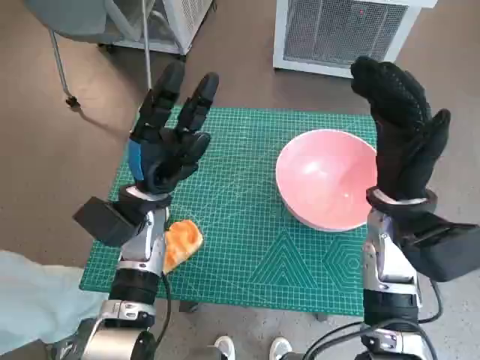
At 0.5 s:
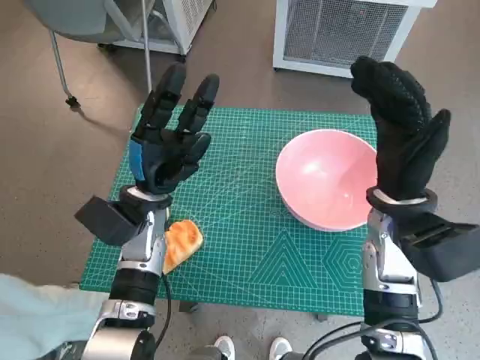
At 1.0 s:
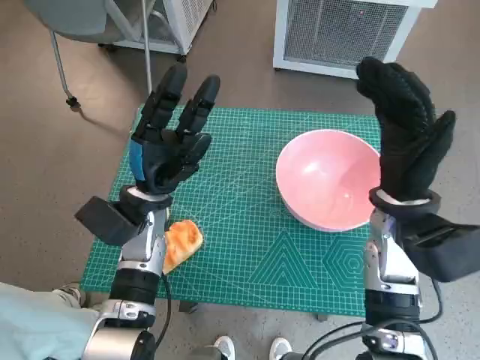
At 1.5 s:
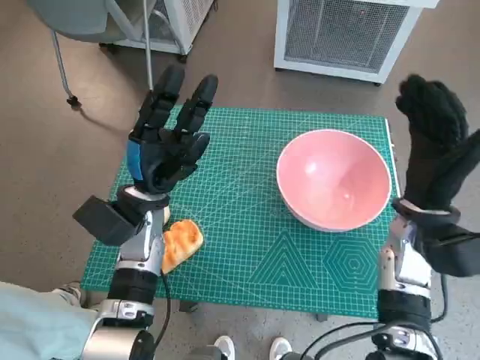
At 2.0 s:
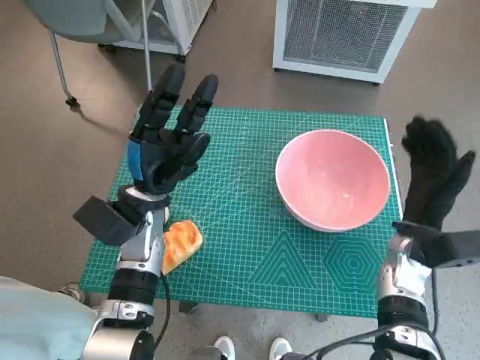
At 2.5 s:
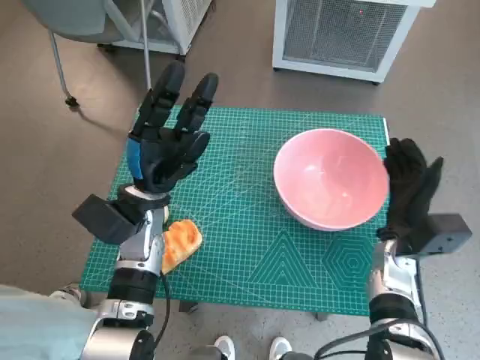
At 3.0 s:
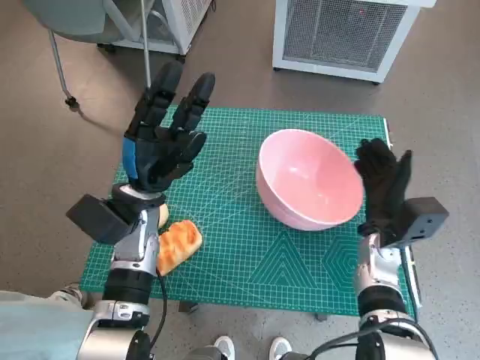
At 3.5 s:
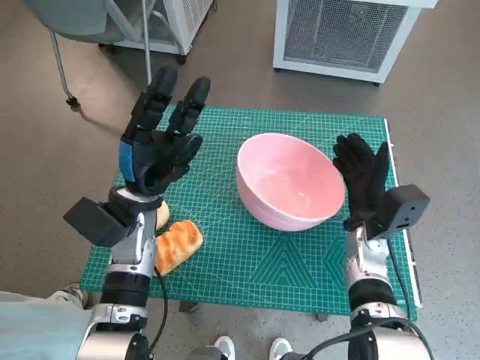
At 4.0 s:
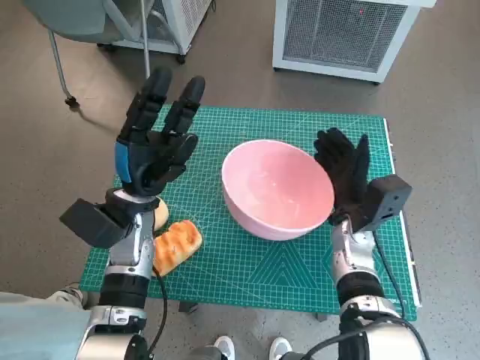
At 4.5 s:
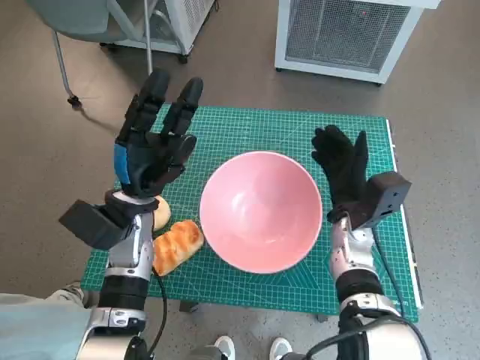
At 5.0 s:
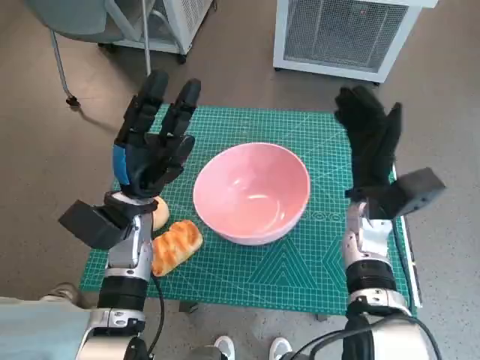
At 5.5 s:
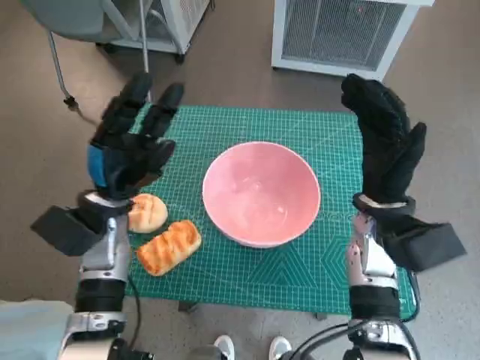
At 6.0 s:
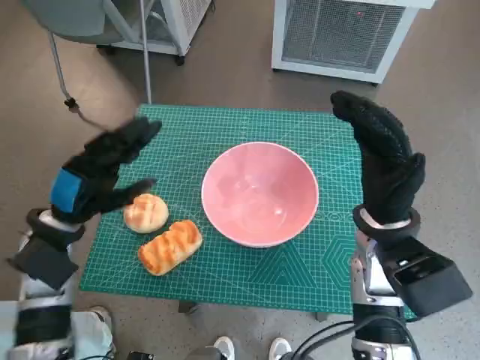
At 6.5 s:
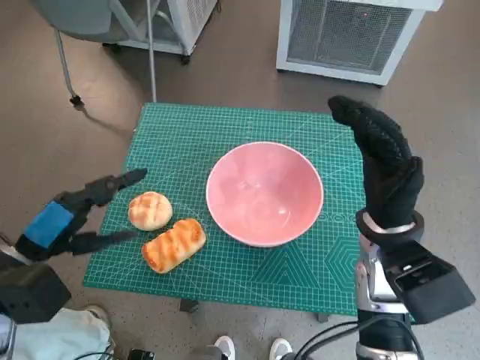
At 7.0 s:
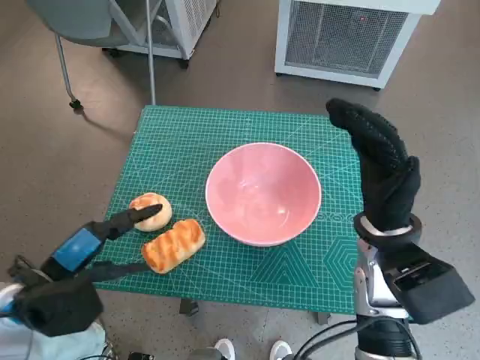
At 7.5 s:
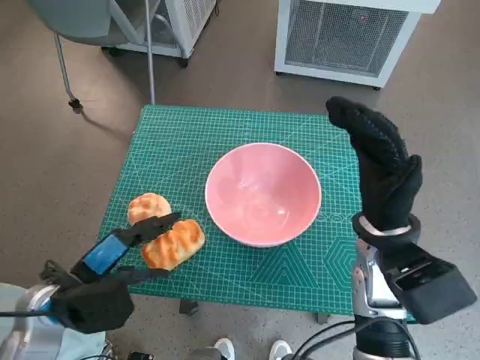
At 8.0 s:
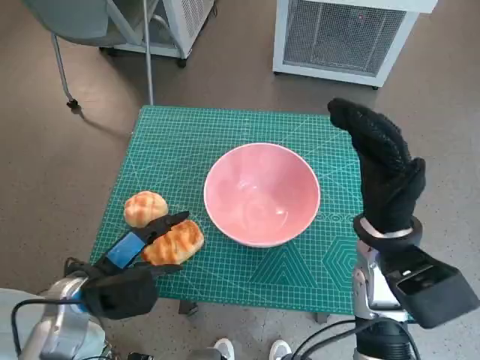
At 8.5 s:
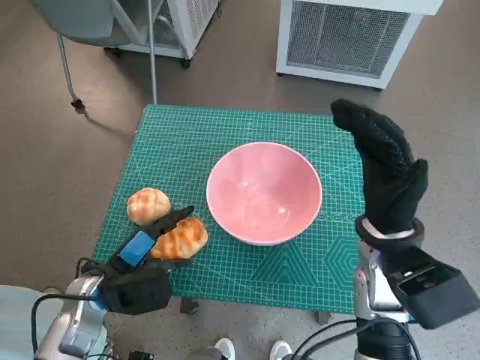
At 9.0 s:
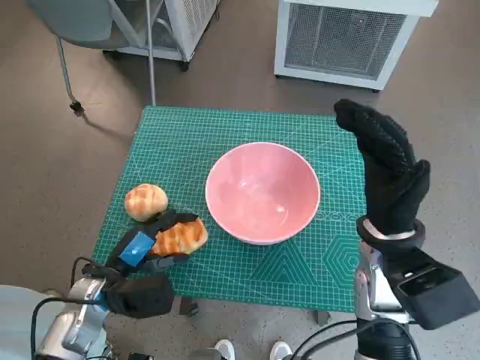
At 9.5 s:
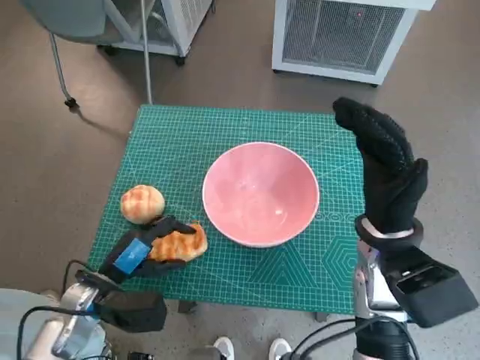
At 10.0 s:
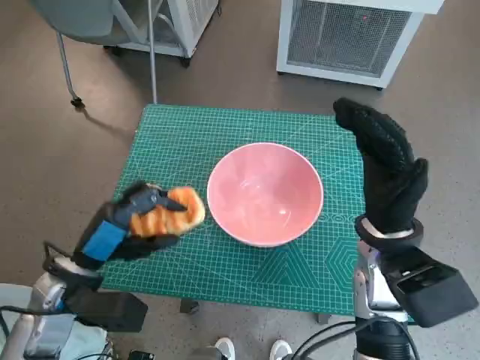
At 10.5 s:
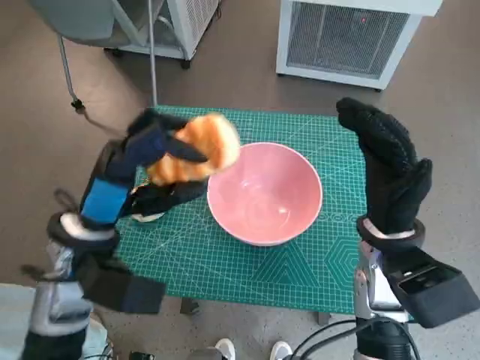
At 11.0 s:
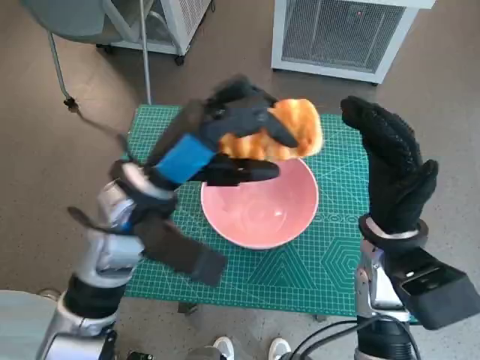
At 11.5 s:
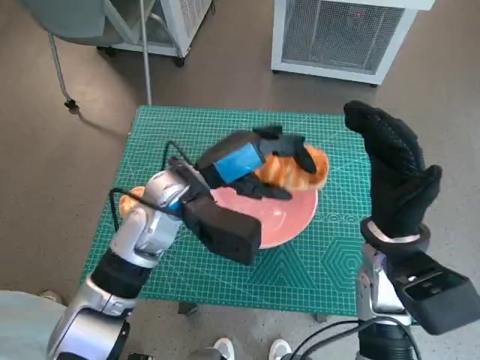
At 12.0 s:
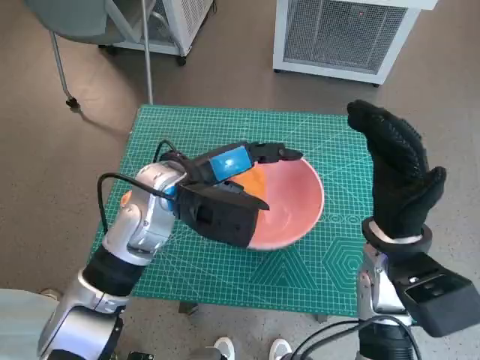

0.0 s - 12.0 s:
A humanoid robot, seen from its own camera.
Task of the whole recording: Push the bowl to the center of the table and put the bread into the bowl.
Step, 0.0 s - 4.5 s: Move the pink bowl to the center of table with right hand.
Step, 5.0 s - 9.0 s: Grasp the long bread with left hand.
2.0 s - 4.0 s: The right hand shifts some 5 cm to the left.
4.0 s - 6.0 s: The left hand moves to the left, about 10 cm; the right hand heads upward, covering roughly 10 cm.
6.0 s - 8.0 s: The left hand heads backward and downward, covering some 10 cm.
10.0 s - 12.0 s: The left hand travels to the right, forward and upward by roughly 20 cm.

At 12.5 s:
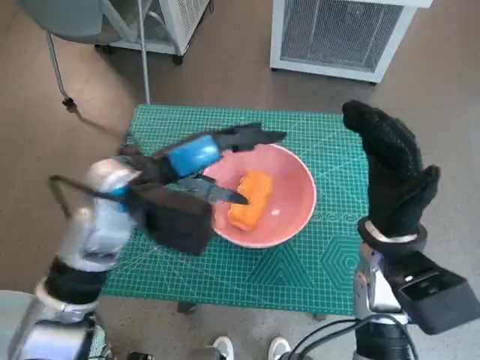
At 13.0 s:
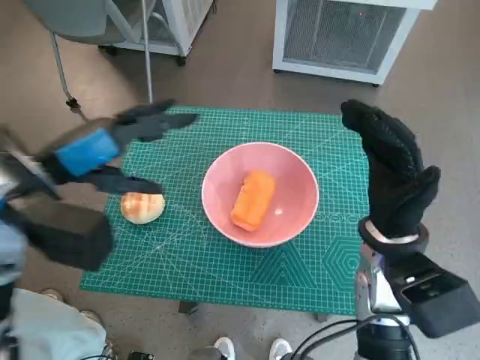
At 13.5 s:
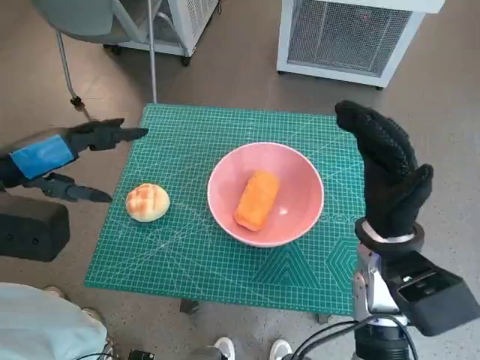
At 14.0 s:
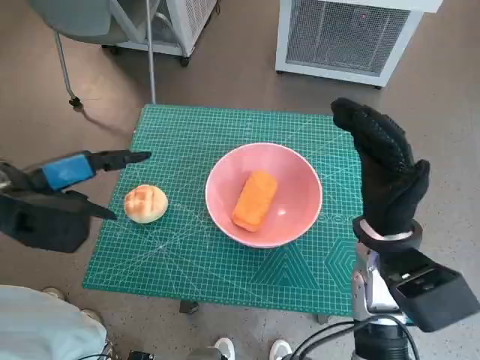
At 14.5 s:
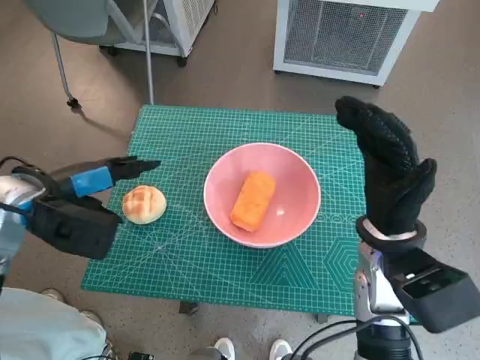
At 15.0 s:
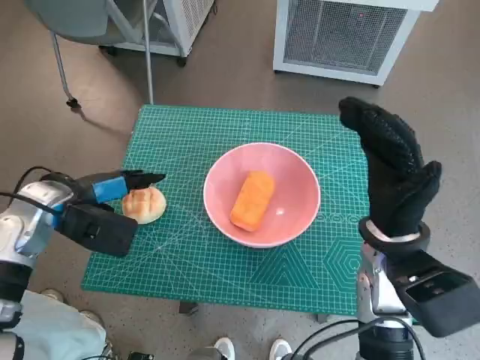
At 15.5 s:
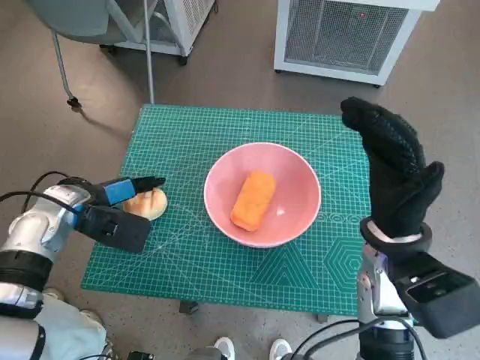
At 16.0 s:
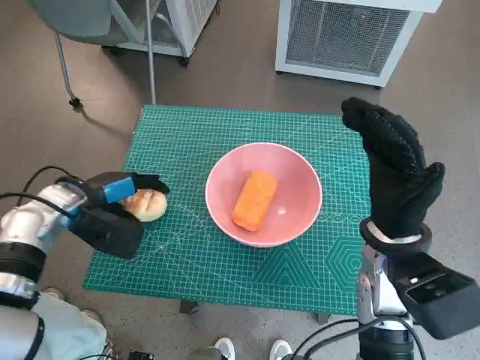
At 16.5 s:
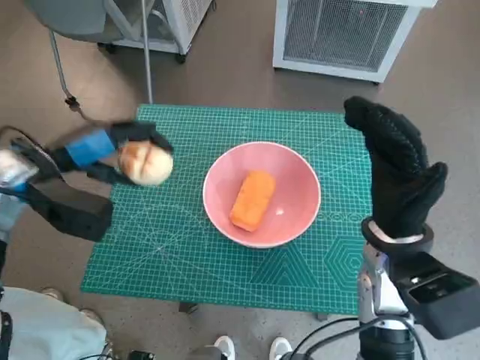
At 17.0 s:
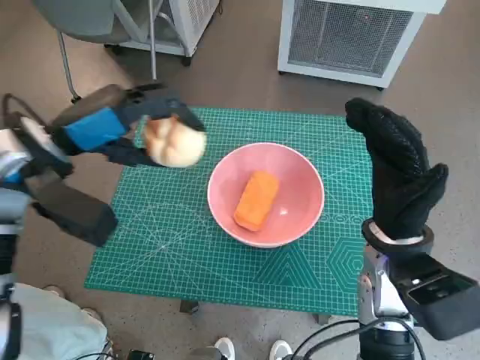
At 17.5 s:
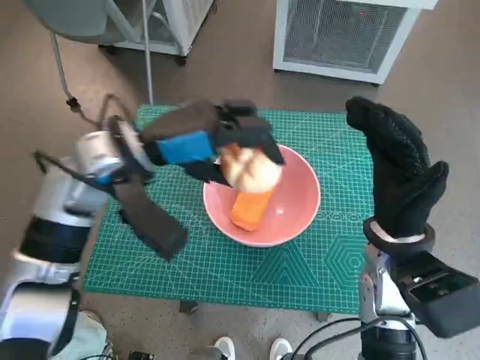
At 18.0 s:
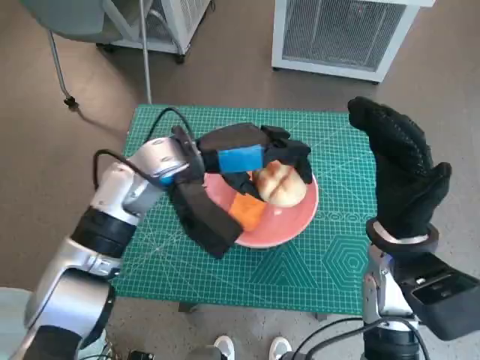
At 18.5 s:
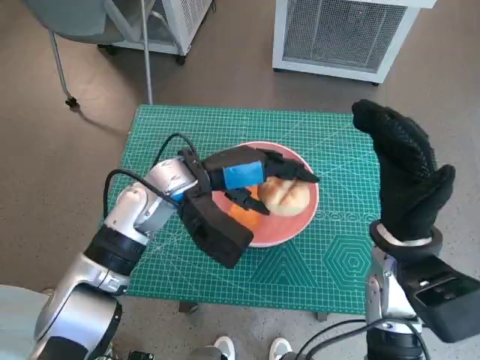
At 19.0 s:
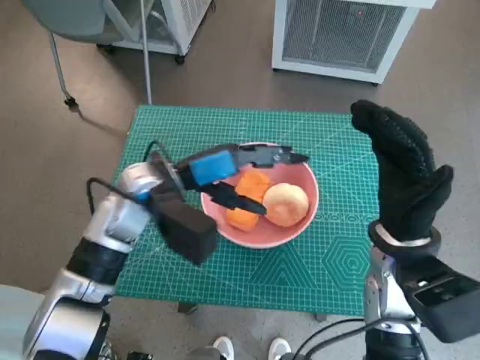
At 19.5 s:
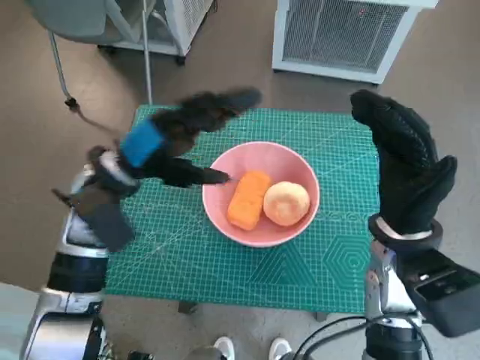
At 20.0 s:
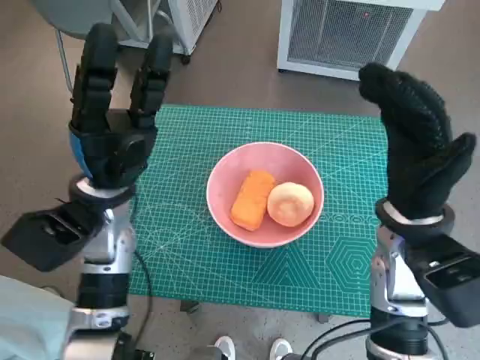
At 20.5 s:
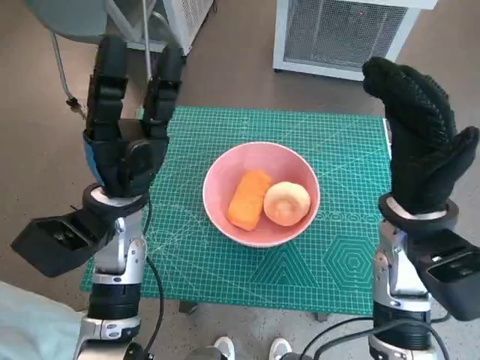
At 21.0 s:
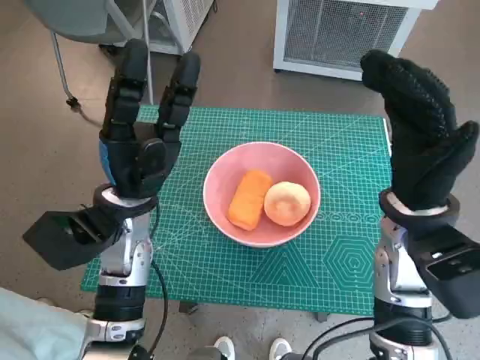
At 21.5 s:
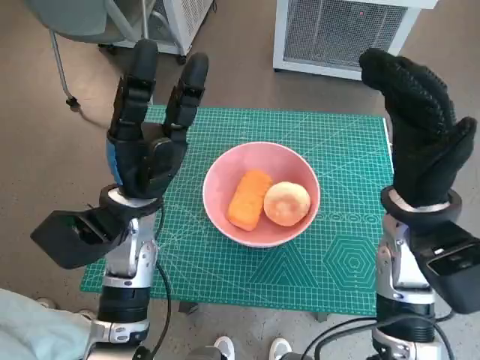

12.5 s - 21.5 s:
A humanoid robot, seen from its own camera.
Task of the whole recording: Push the bowl to the center of the table and put the bread into the bowl.
Step, 12.5 s - 15.5 s: Grasp the round bread with left hand.
Step, 16.0 s - 19.0 s: Place the round bread in pink bowl with left hand.
12.5 s - 14.5 s: The left hand shifts about 15 cm to the left.
14.5 s - 17.0 s: The left hand moves upward, some 5 cm.
17.0 s - 19.5 s: The left hand heads to the right and downward, covering some 10 cm.
19.5 s - 21.5 s: The left hand shifts by some 5 cm.

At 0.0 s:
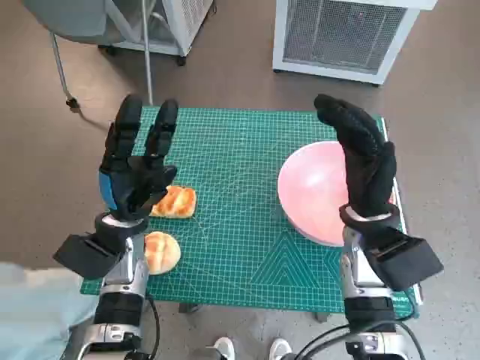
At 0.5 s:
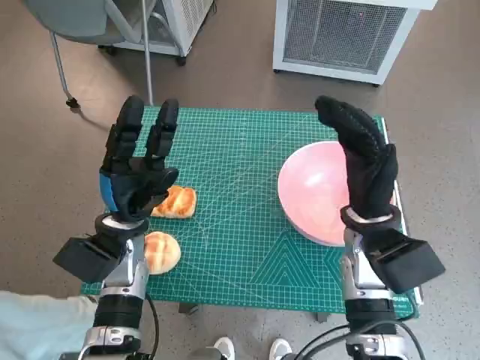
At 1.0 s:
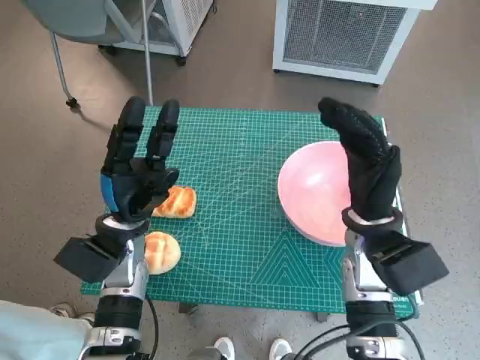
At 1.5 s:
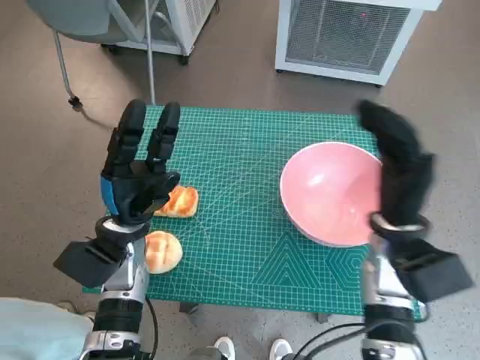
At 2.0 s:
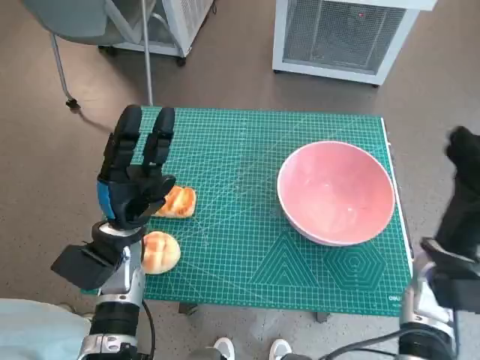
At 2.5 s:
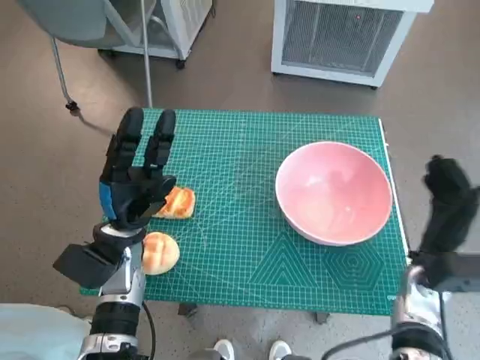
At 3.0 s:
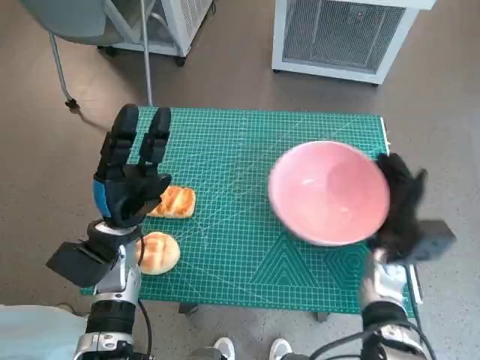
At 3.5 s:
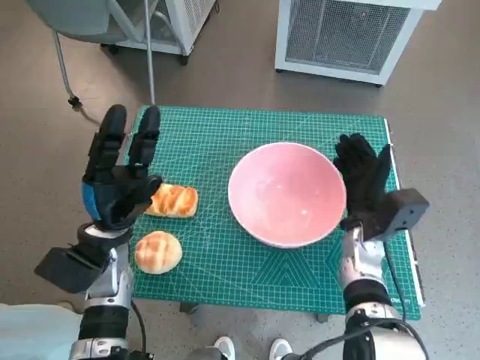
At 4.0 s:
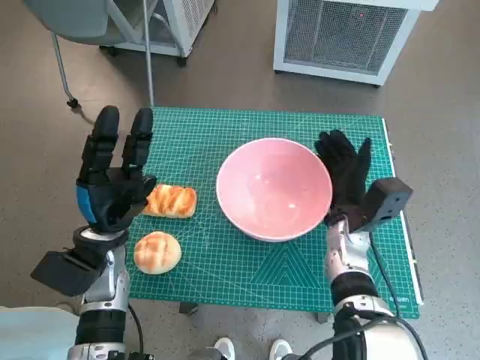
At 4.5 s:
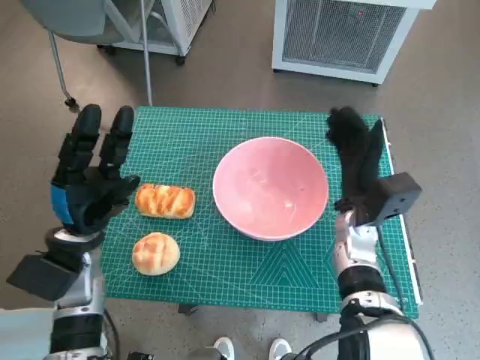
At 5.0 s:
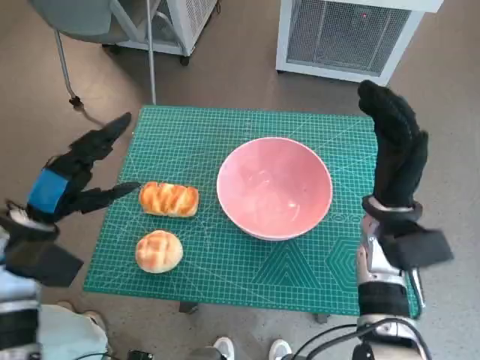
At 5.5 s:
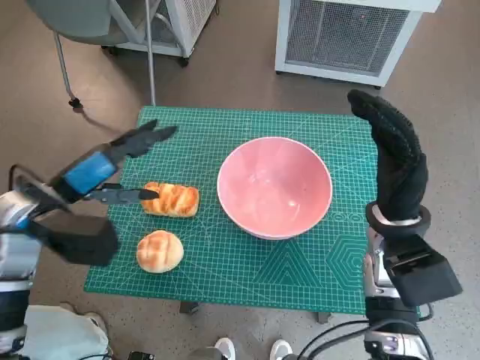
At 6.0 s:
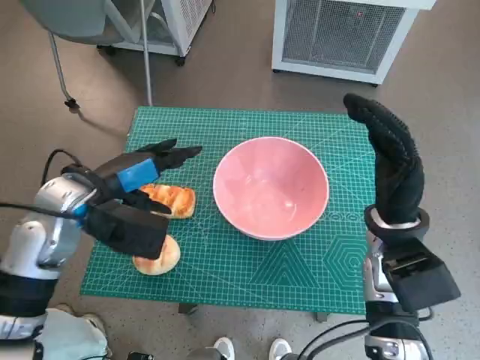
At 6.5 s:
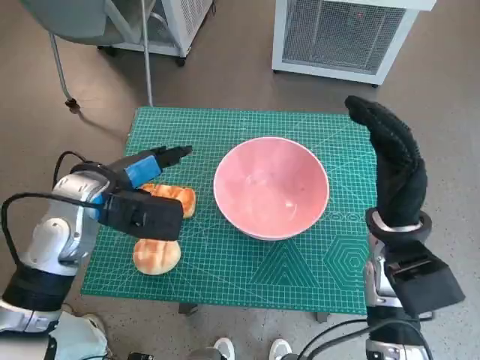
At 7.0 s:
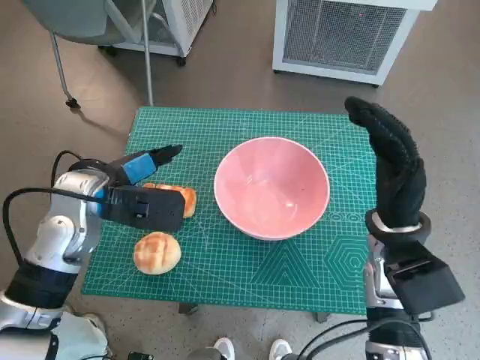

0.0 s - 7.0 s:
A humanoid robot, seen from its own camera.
Task of the whole recording: Push the bowl to the center of the table and put the bread into the bowl.
Step, 0.0 s - 4.5 s: Move the pink bowl to the center of table with right hand.
2.0 s - 3.5 s: The right hand heads to the left and forward, covering roughly 10 cm.
3.5 s - 5.0 s: The left hand moves to the left and upward, roughly 10 cm, while the right hand shifts approximately 10 cm upward.
5.0 s - 7.0 s: The left hand goes about 10 cm to the right and forward.
